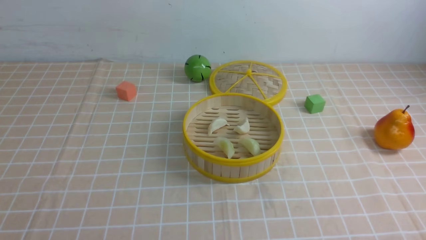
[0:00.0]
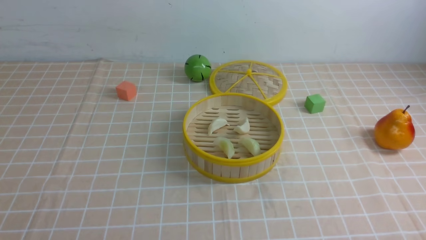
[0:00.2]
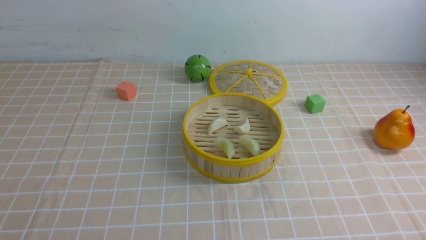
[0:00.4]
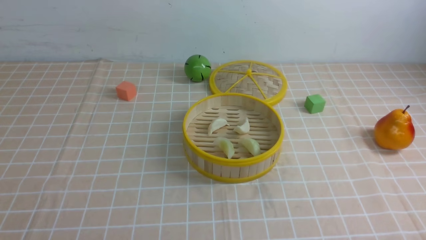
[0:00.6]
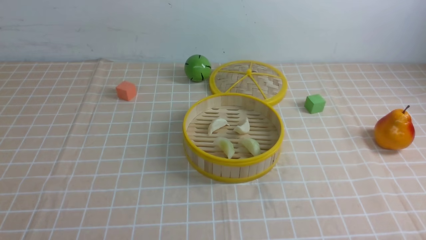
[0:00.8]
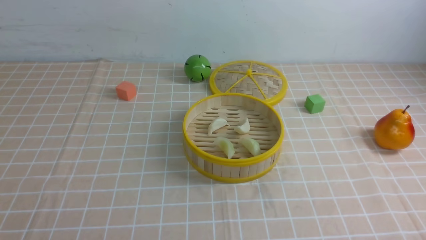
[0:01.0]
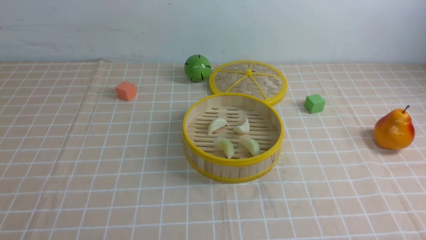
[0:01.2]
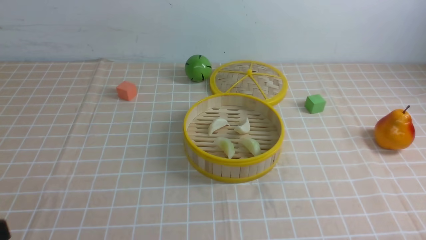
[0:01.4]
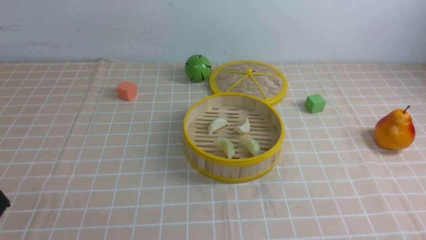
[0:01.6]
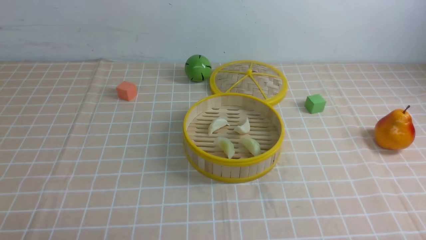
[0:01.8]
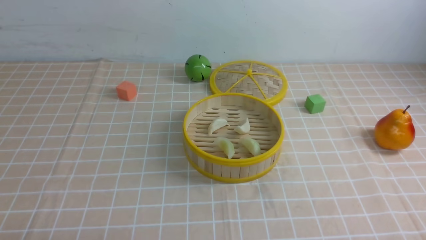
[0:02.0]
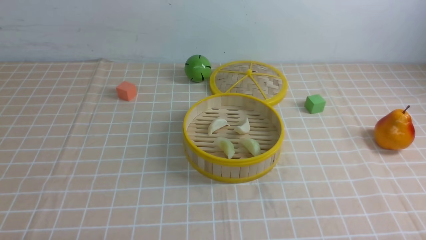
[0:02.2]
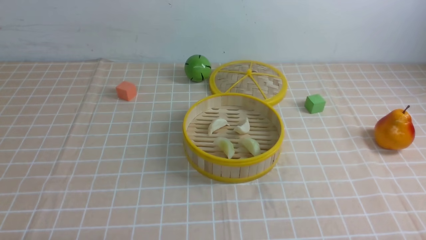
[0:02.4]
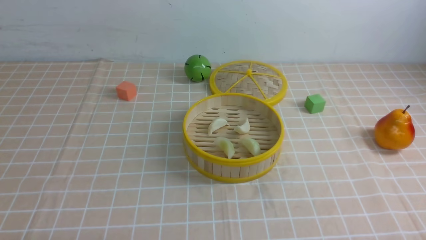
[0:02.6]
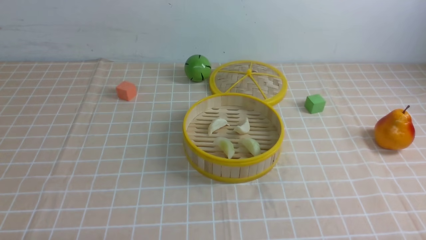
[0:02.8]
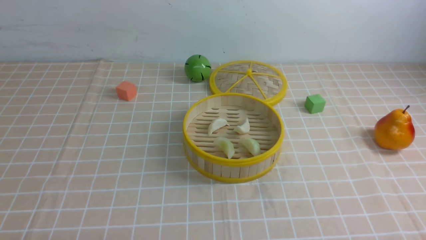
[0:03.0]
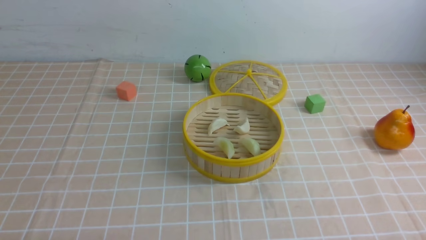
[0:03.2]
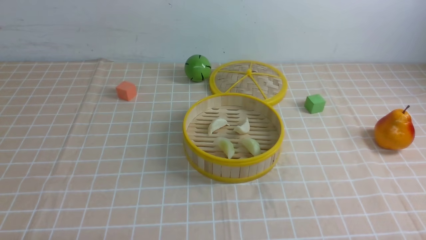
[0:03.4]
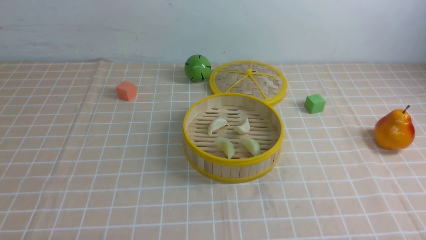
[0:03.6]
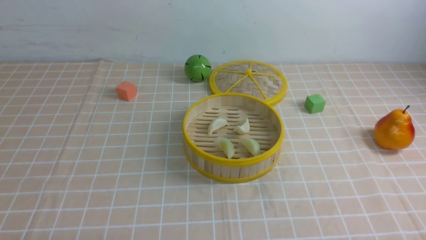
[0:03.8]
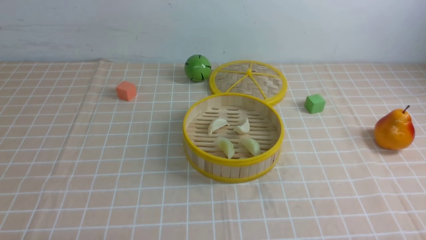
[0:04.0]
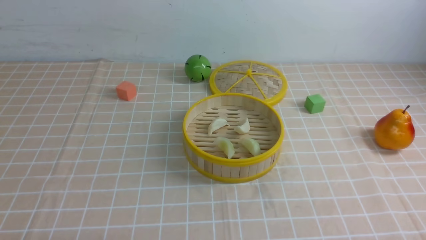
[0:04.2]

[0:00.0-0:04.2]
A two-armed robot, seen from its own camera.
Task of the whole recording: put the dumplings into the steamer on the table with the brown tablecloth.
0:02.8 to 0:04.2: Neither gripper changes place.
